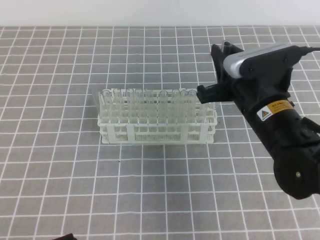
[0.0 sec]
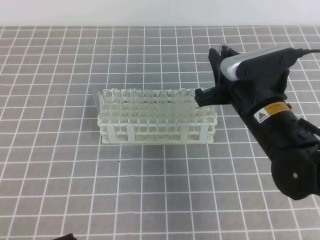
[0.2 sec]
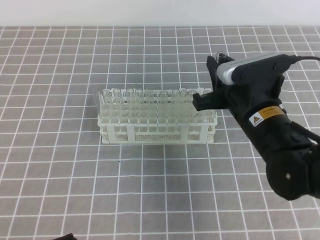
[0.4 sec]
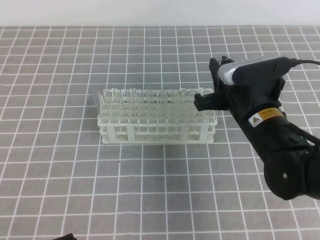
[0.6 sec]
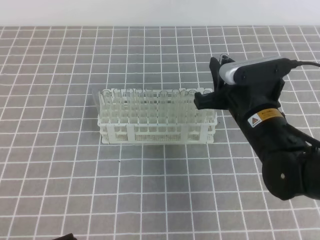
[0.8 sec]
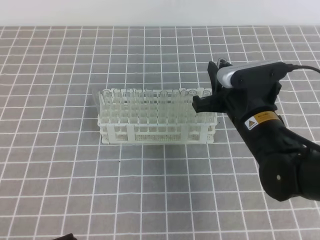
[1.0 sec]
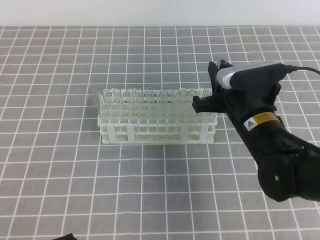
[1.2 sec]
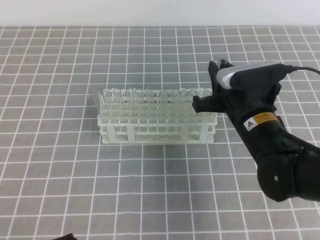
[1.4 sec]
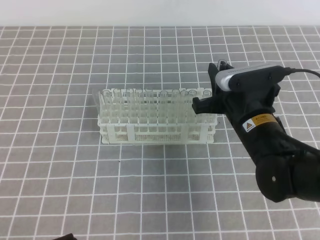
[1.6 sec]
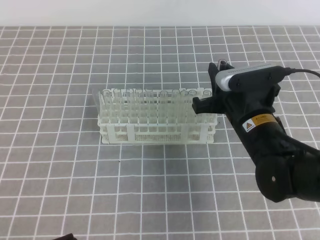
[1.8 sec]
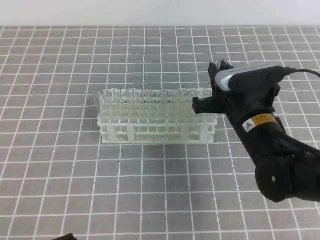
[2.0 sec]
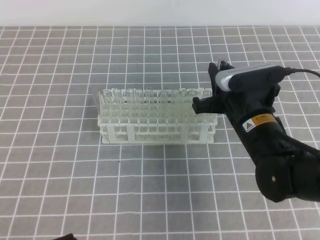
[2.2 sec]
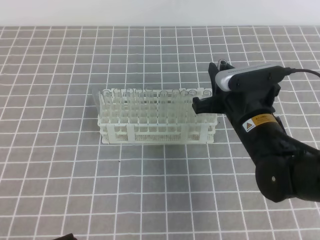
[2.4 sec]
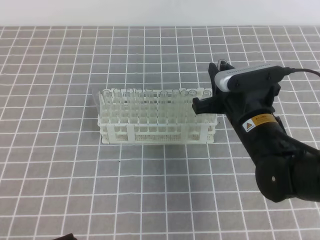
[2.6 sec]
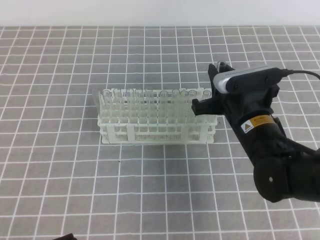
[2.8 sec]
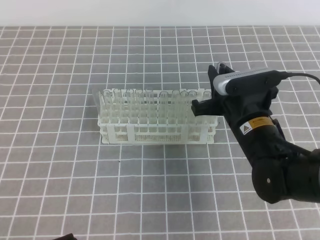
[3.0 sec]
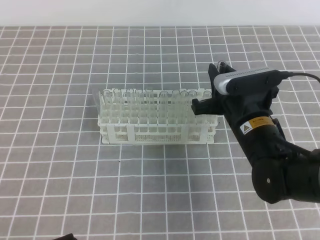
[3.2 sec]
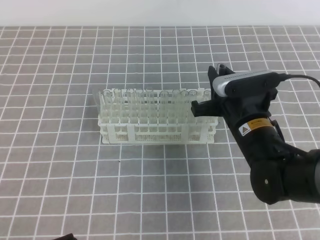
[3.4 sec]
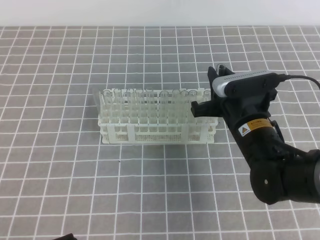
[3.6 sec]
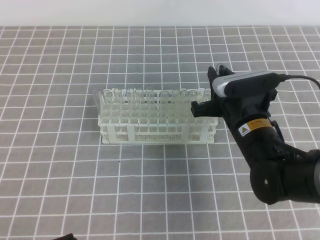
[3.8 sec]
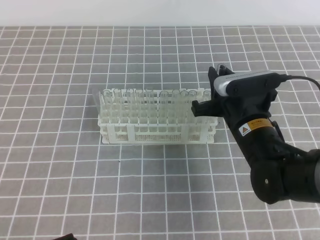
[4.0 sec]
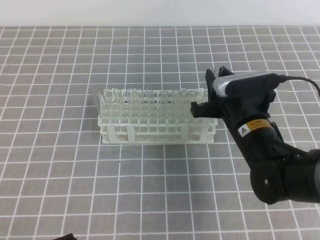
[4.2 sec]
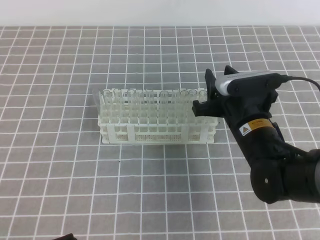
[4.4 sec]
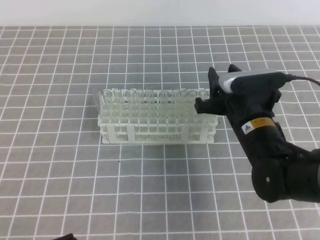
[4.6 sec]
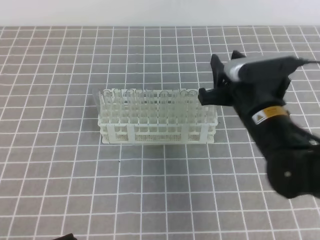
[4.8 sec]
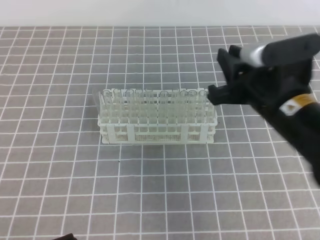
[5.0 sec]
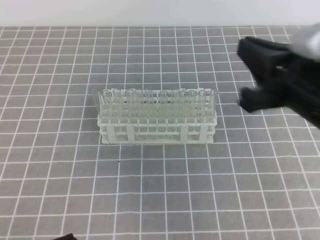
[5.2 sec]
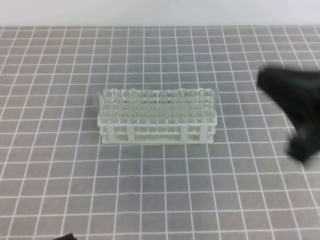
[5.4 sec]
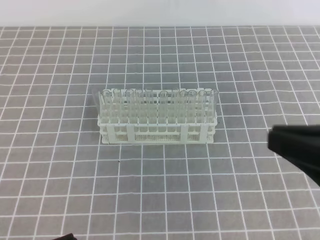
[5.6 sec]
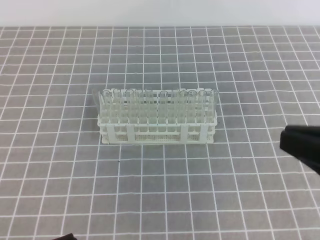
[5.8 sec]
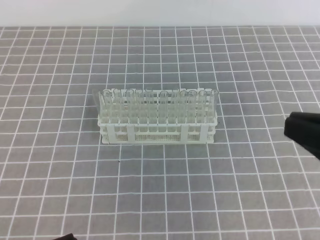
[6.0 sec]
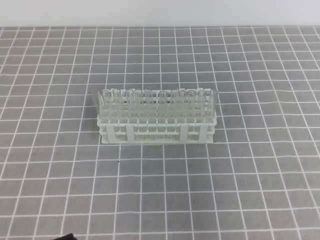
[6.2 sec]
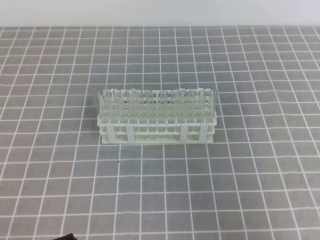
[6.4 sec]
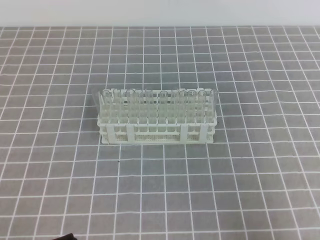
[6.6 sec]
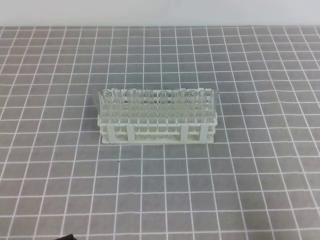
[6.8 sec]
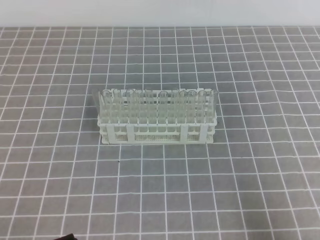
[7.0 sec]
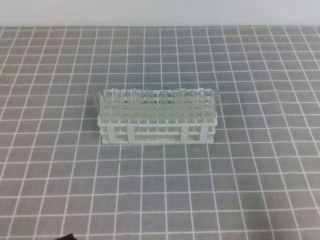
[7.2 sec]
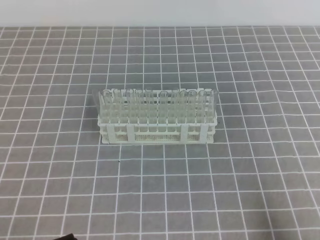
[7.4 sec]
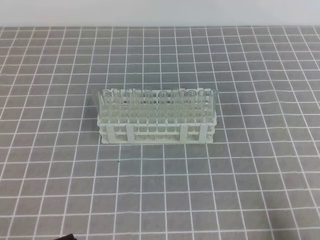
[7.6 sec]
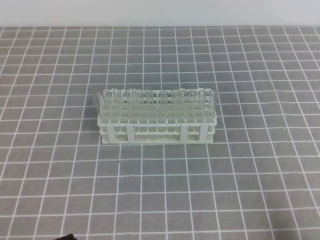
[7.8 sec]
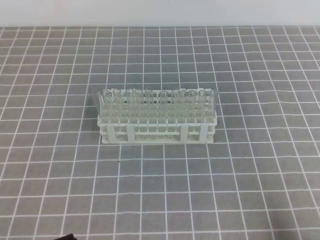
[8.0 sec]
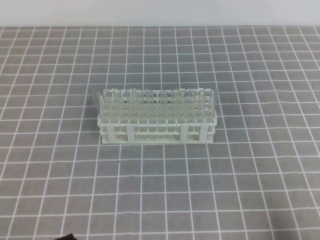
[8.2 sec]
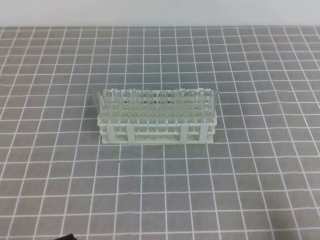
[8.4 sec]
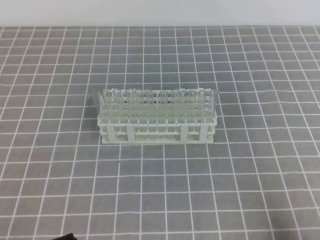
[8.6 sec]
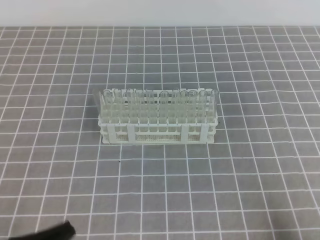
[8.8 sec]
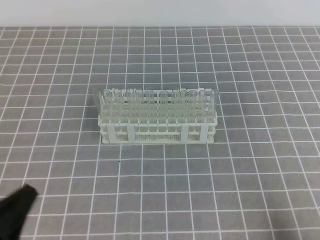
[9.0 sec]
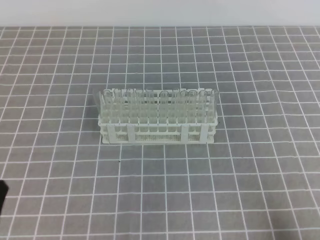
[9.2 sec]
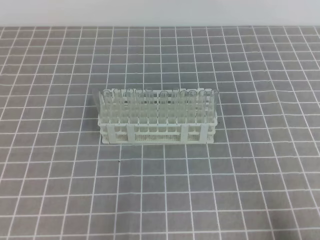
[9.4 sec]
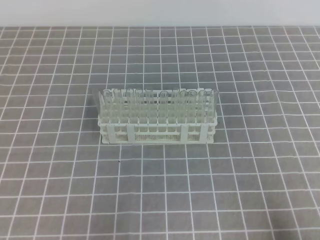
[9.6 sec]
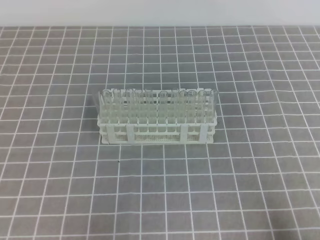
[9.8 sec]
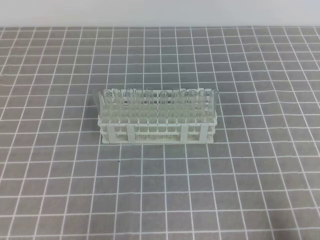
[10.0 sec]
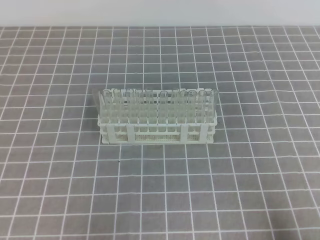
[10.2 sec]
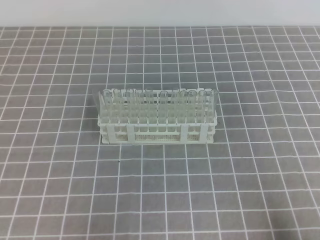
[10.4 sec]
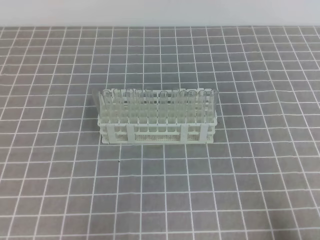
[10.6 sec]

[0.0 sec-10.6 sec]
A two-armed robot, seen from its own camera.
0.0 sec to 1.6 sec: There are only small adjustments of the grippers.
1.6 sec to 3.0 sec: The two grippers keep their place.
3.0 sec to 4.6 sec: The right gripper opens up.
4.6 sec to 6.0 sec: The right gripper goes about 25 cm backward, upward and to the right, and closes.
6.0 sec to 7.6 sec: The right gripper goes roughly 20 cm downward and to the right.
7.6 sec to 9.0 sec: The grippers stay close to where they were, moving slightly.

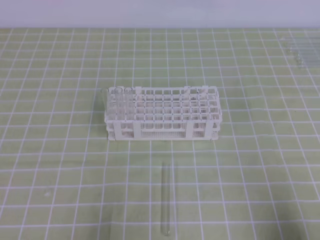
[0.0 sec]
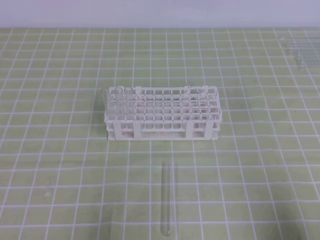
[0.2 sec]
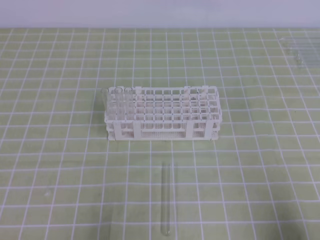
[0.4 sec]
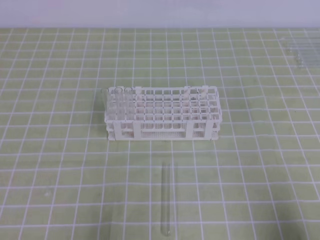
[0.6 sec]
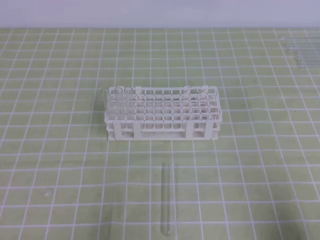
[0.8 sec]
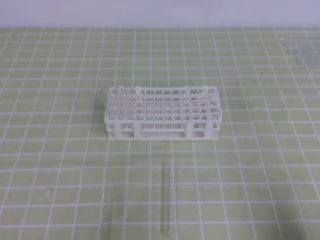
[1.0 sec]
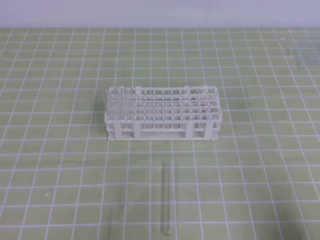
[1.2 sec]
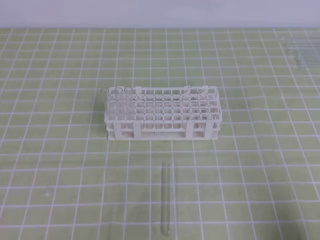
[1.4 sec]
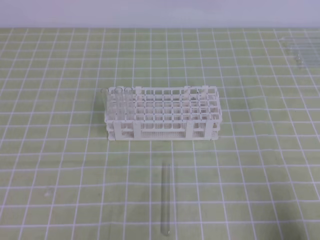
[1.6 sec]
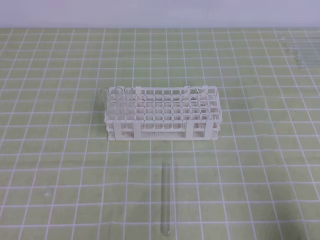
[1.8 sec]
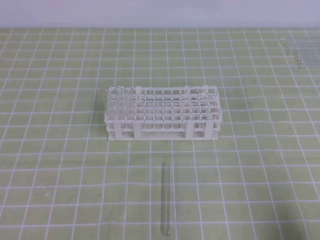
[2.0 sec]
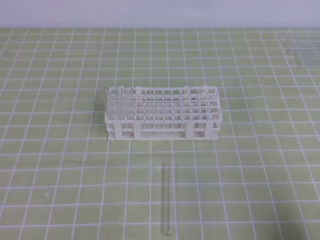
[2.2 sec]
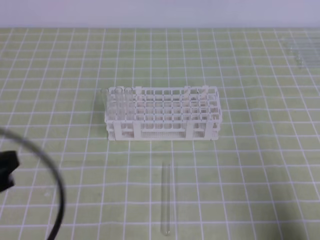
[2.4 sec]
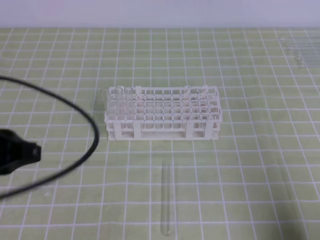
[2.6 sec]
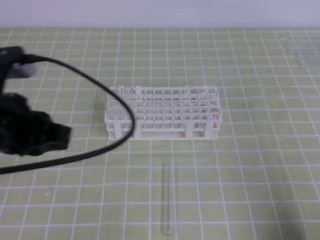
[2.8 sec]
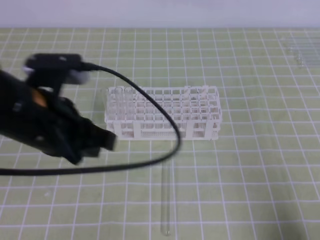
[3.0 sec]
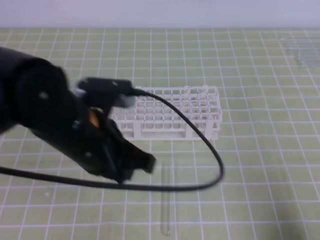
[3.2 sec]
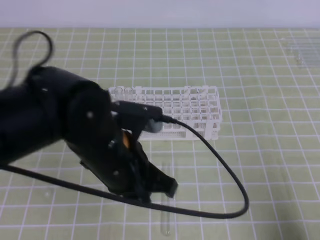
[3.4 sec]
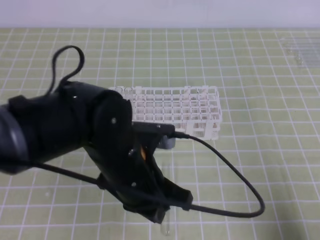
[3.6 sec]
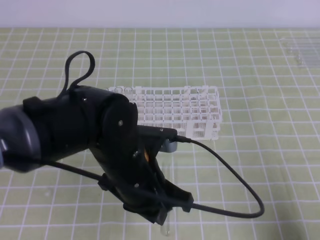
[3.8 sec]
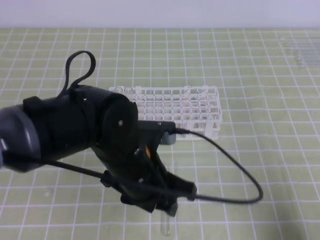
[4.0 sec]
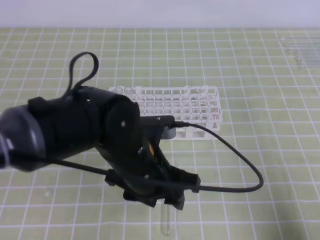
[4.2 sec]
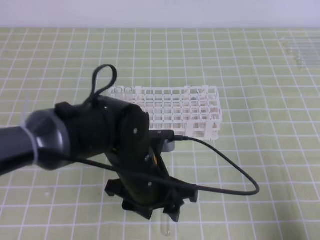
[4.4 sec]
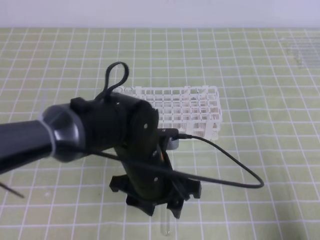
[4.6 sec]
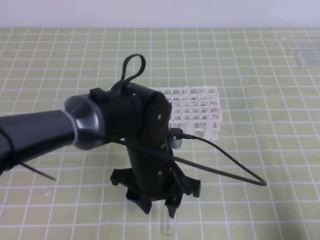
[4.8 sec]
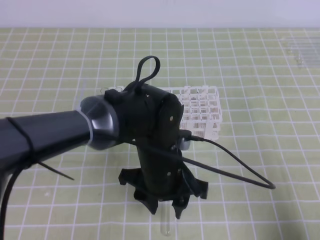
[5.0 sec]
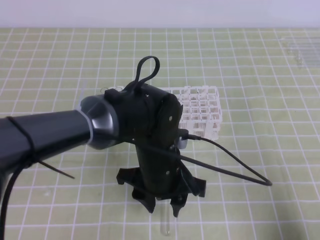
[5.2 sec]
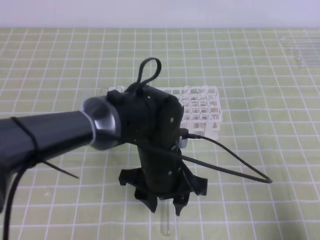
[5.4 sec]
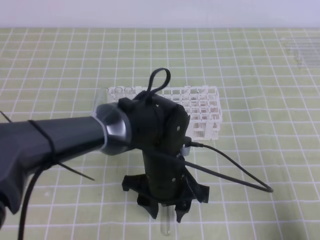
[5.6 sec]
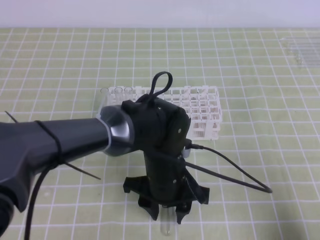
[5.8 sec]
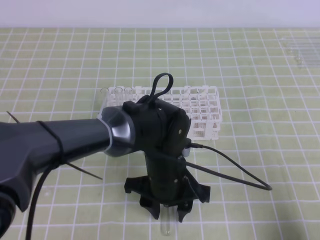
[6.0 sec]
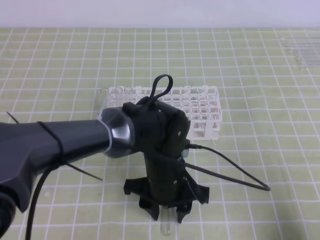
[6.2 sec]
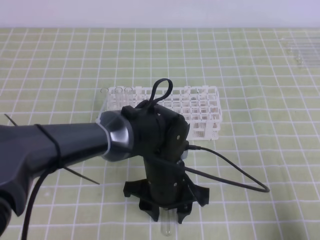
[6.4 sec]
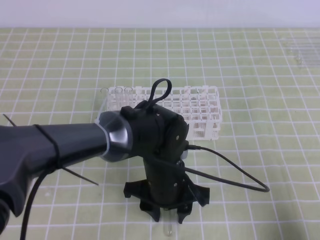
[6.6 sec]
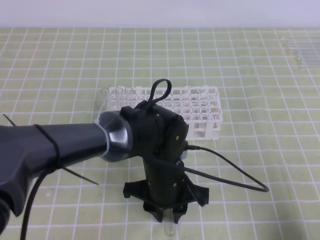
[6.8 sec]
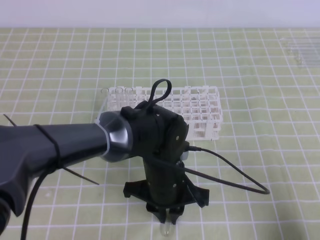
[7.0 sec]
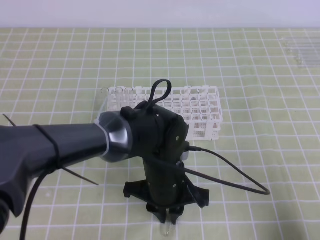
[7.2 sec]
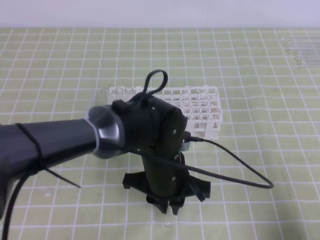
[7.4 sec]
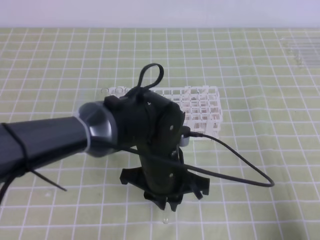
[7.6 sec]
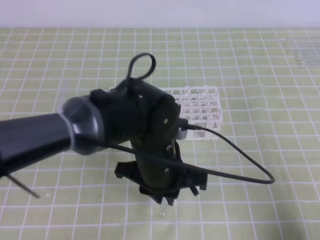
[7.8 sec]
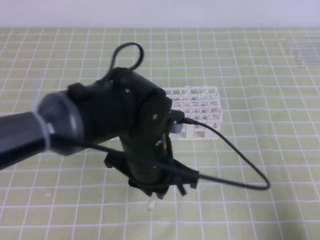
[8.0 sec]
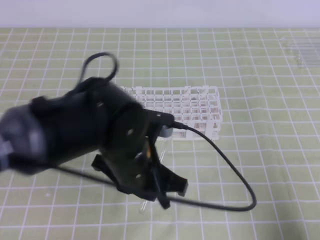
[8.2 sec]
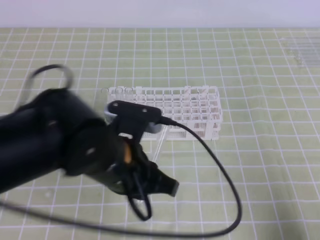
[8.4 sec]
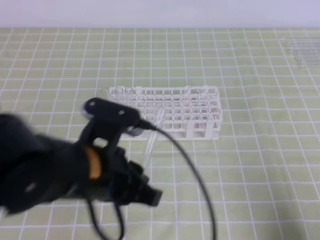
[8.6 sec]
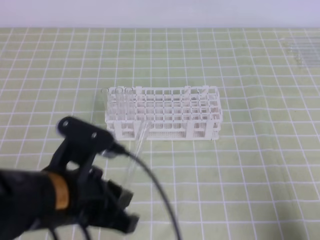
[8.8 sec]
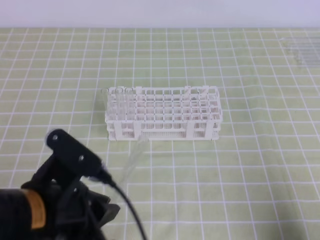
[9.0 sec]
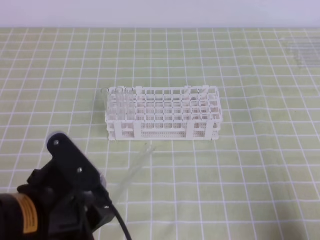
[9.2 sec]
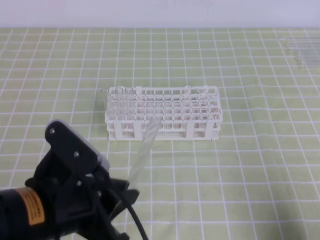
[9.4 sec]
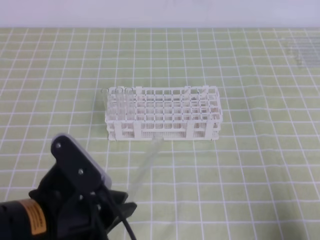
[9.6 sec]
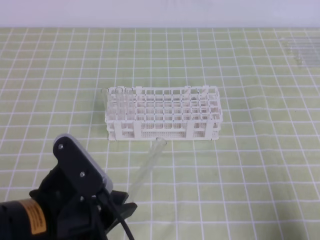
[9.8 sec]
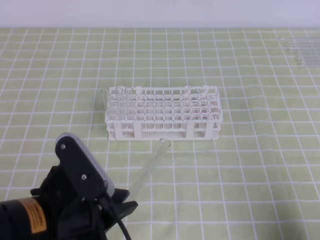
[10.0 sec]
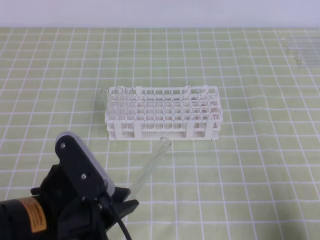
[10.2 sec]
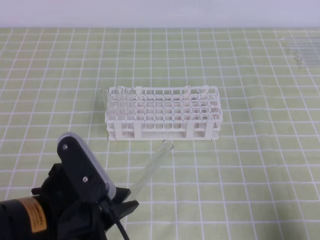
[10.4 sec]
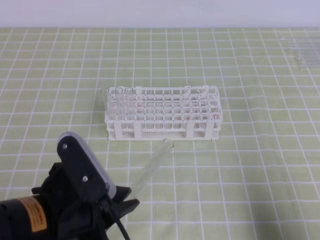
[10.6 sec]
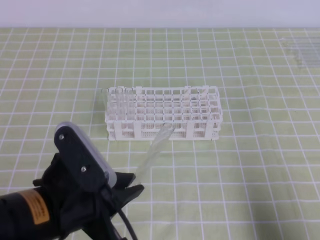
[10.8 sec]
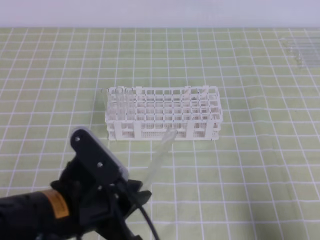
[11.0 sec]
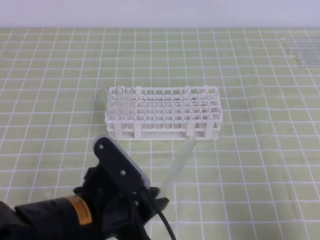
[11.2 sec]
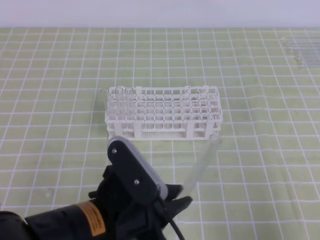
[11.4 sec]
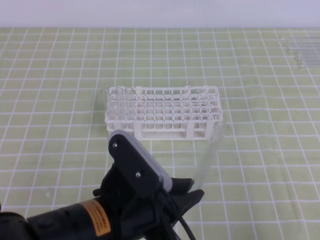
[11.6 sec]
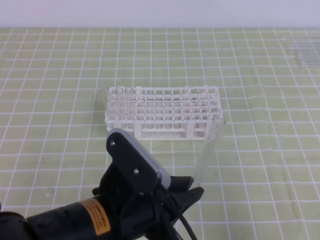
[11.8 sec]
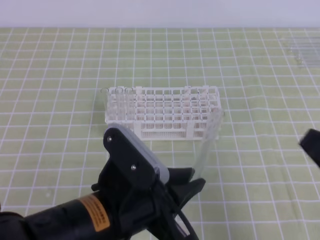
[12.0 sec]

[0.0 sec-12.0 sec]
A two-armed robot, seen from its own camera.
1.6 sec to 3.0 sec: The left gripper heads forward, upward and to the right, covering some 20 cm.
3.0 sec to 4.4 sec: The left gripper travels to the right and downward by some 20 cm, and opens its fingers.
4.4 sec to 6.0 sec: The left gripper goes approximately 5 cm downward.
6.0 sec to 7.6 sec: The left gripper closes.
7.6 sec to 9.0 sec: The left gripper travels to the left, backward and upward by approximately 20 cm.
10.4 sec to 12.0 sec: The right gripper heads upward, covering some 10 cm, and opens its fingers, while the left gripper moves to the right, some 5 cm.
